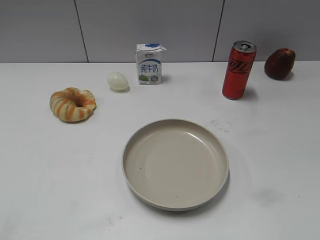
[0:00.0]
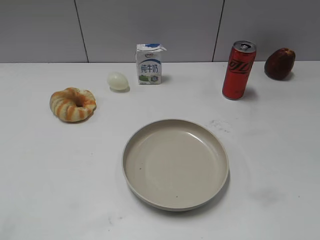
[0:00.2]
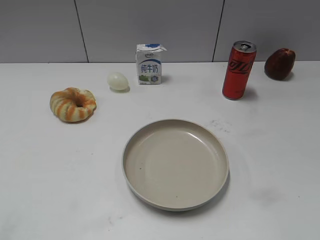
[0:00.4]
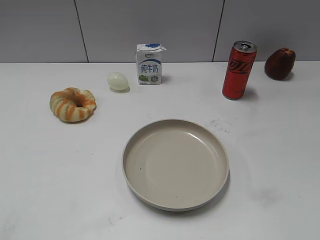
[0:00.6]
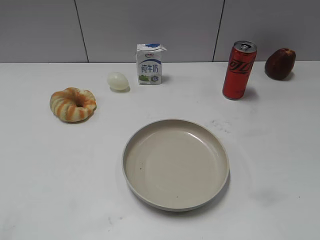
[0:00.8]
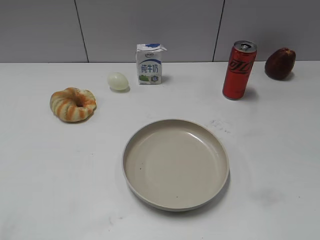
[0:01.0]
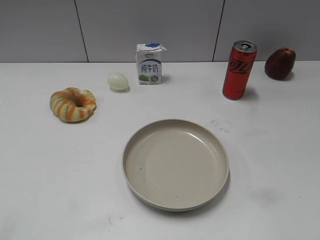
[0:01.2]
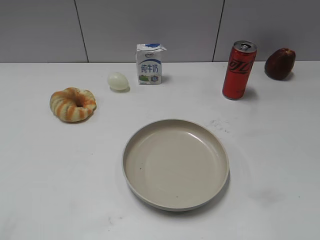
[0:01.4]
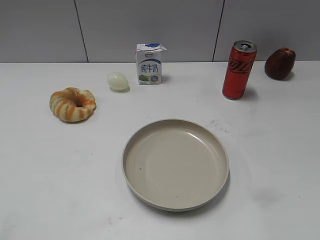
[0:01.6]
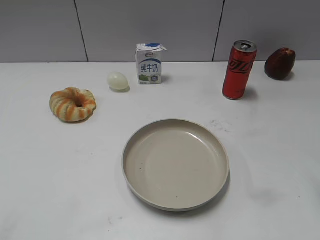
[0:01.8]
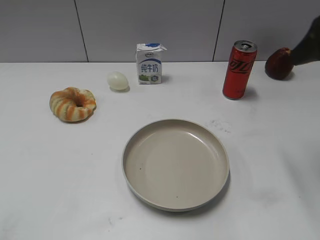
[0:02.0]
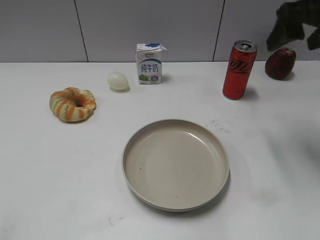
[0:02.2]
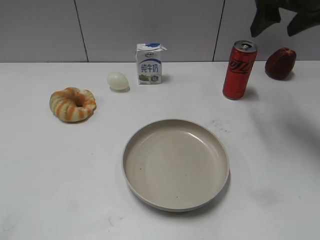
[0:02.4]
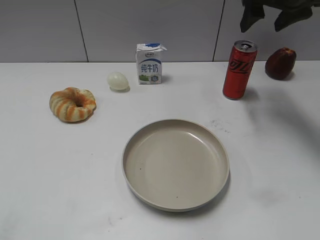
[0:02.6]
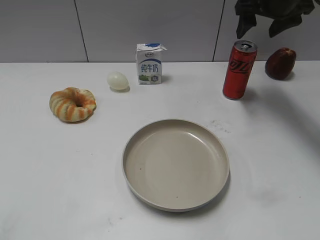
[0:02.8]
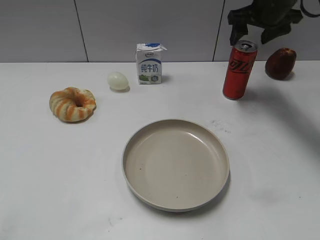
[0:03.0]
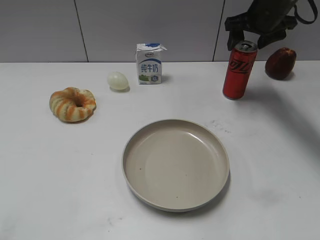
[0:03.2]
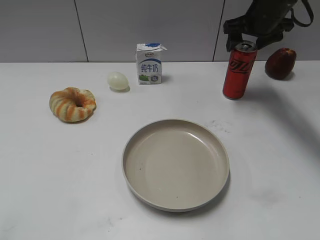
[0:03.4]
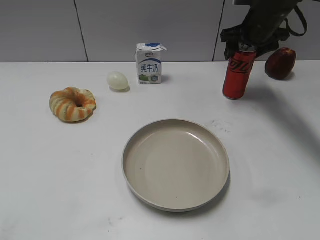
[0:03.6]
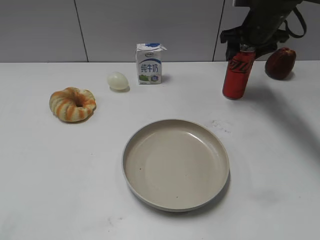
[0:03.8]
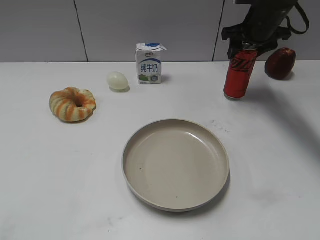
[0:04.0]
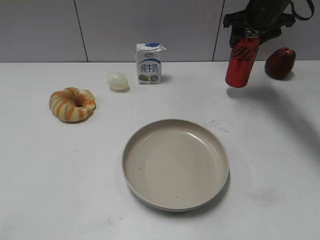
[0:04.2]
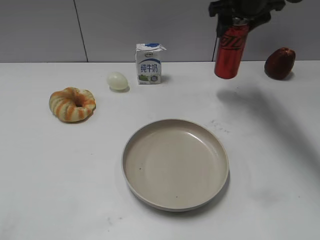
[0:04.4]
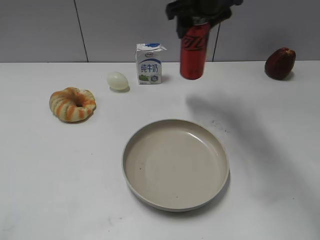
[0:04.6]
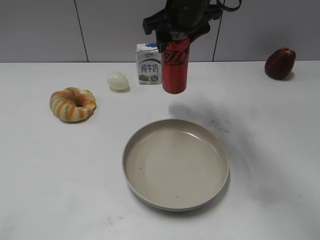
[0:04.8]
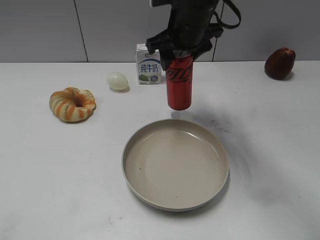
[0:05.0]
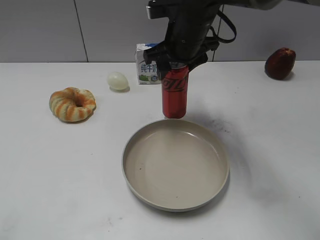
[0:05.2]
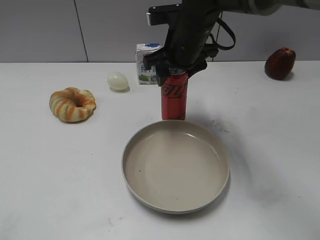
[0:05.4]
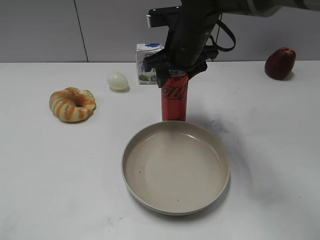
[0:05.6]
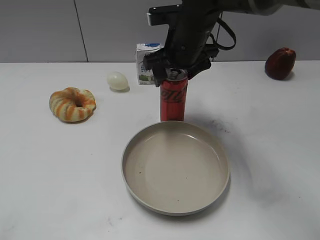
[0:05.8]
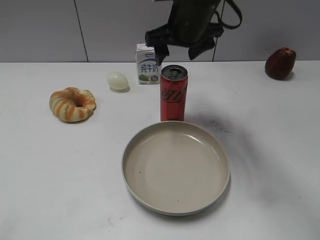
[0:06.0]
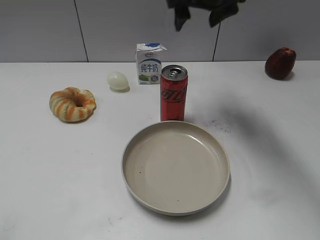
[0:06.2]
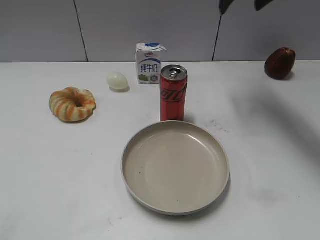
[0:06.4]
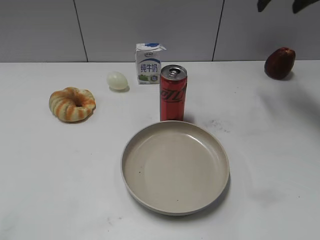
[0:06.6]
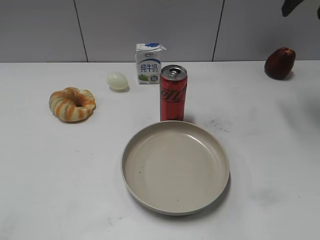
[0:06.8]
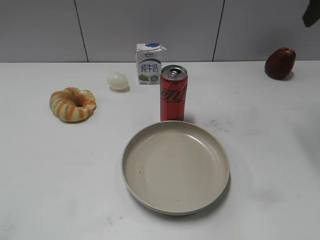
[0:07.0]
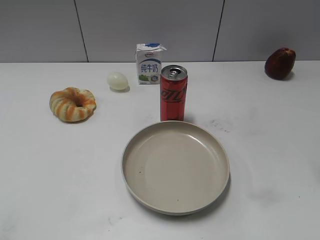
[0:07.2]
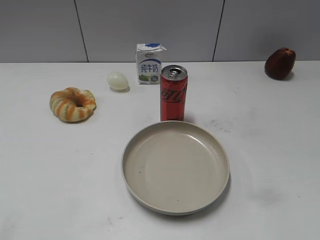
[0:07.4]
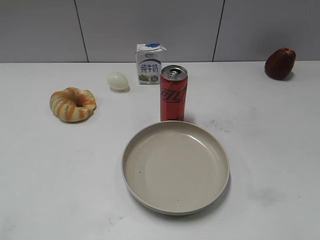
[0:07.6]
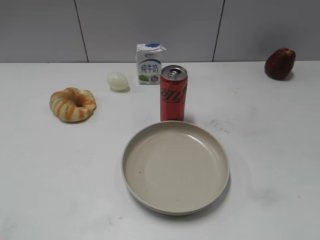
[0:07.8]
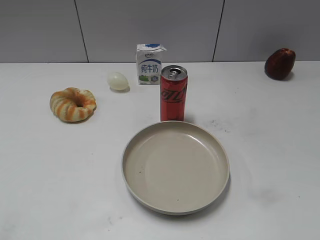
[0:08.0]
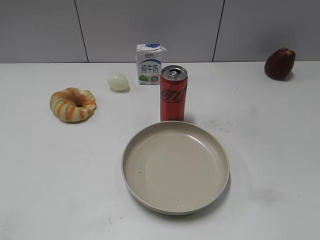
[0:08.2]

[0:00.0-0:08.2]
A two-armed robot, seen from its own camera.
Step, 0:01.0 to 0:03.6: Grasp the cola with right gripper.
Step, 0:04.0 to 0:06.0: Place the cola on the table with right gripper.
0:01.6 to 0:03.2: The right gripper moves forward, approximately 40 cm.
0:03.2 to 0:05.0: The right gripper travels to the left and backward by roughly 20 cm, and closes up.
0:05.0 to 0:06.6: The right gripper shifts approximately 25 cm to the right and upward, and opens up.
0:06.6 to 0:08.2: The right gripper moves backward, approximately 40 cm.
